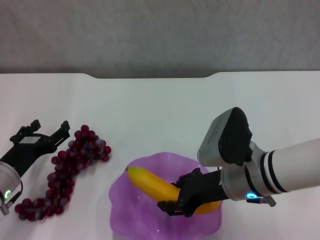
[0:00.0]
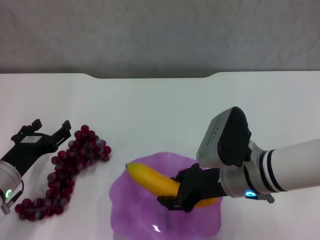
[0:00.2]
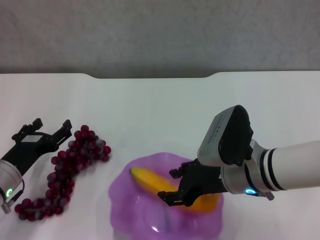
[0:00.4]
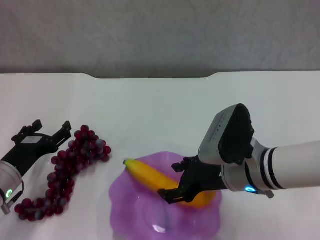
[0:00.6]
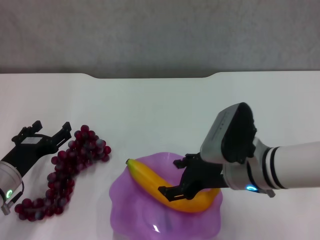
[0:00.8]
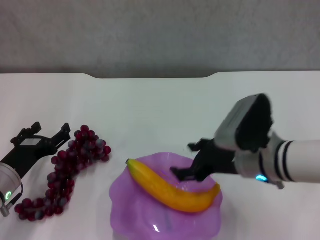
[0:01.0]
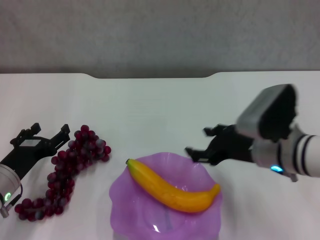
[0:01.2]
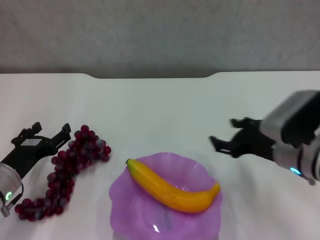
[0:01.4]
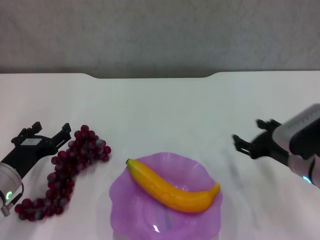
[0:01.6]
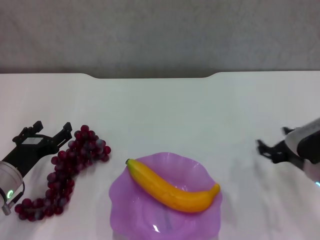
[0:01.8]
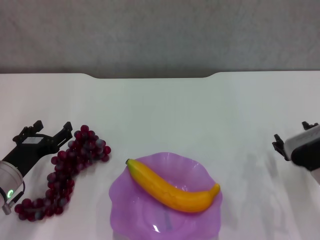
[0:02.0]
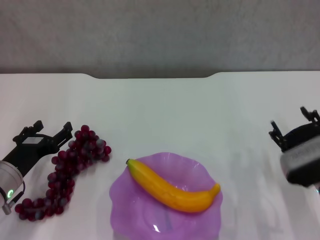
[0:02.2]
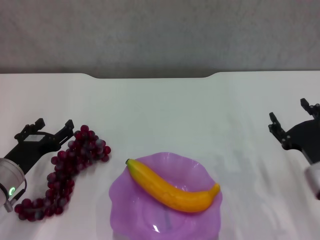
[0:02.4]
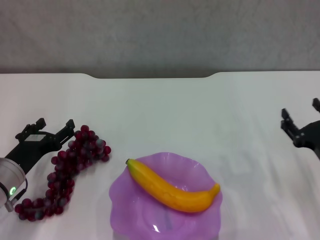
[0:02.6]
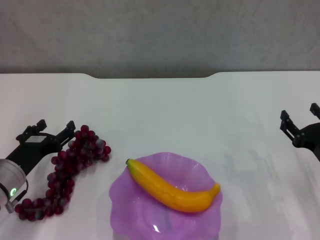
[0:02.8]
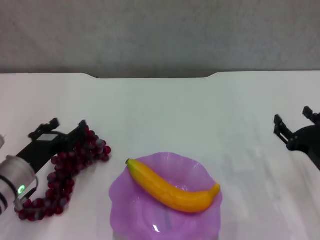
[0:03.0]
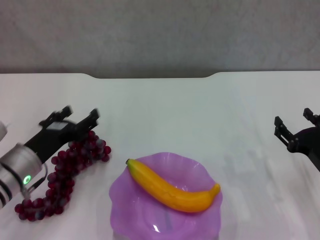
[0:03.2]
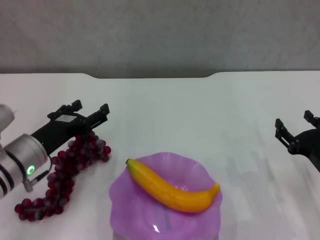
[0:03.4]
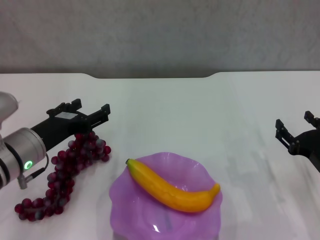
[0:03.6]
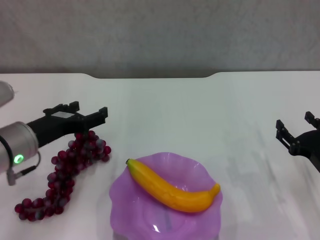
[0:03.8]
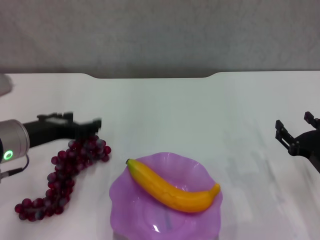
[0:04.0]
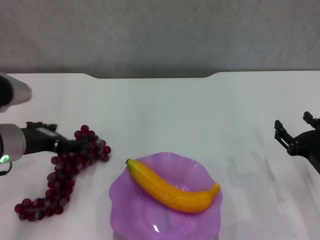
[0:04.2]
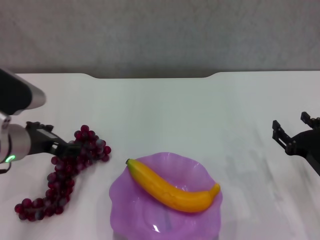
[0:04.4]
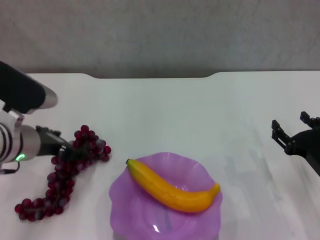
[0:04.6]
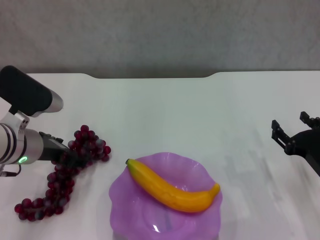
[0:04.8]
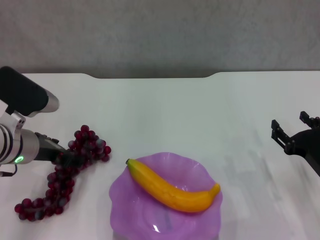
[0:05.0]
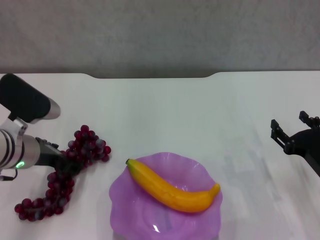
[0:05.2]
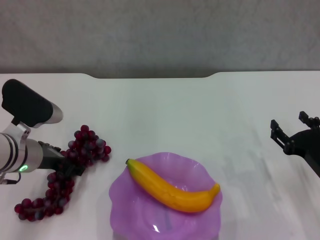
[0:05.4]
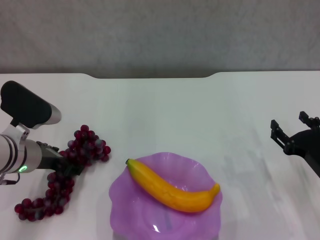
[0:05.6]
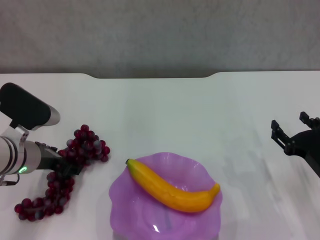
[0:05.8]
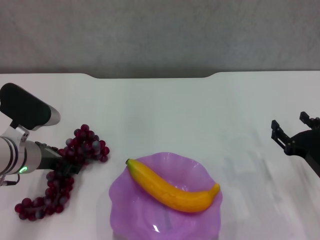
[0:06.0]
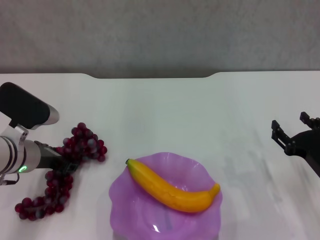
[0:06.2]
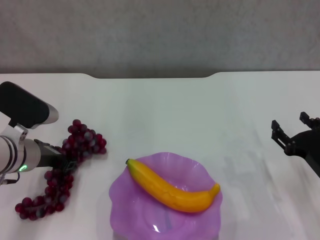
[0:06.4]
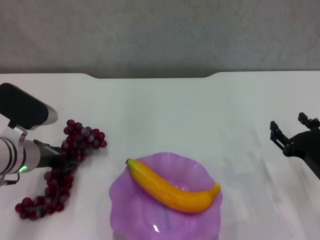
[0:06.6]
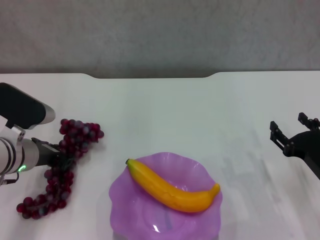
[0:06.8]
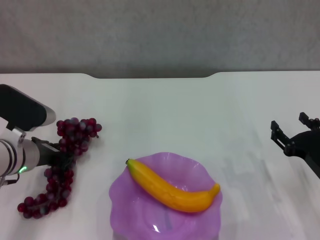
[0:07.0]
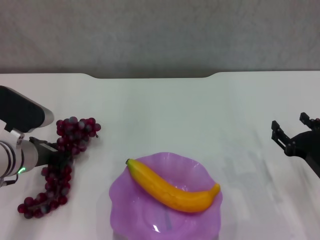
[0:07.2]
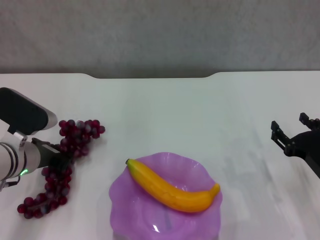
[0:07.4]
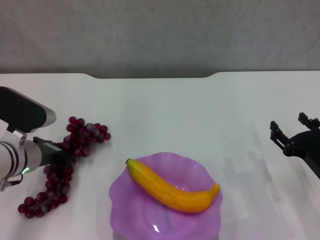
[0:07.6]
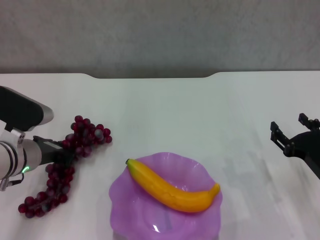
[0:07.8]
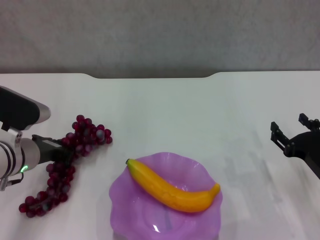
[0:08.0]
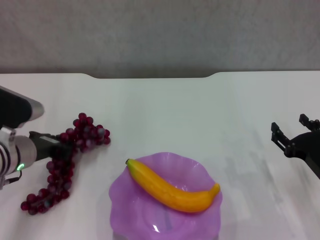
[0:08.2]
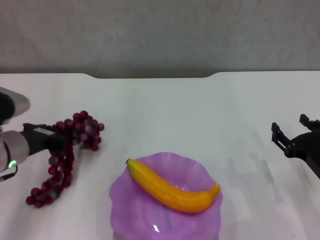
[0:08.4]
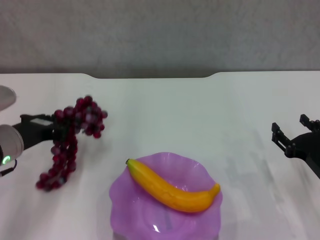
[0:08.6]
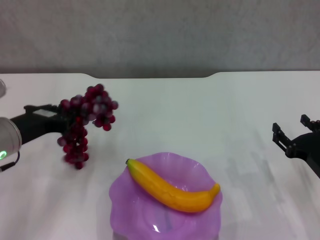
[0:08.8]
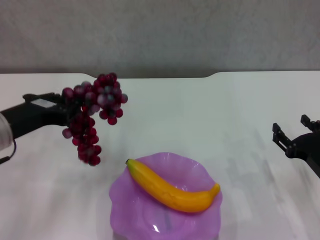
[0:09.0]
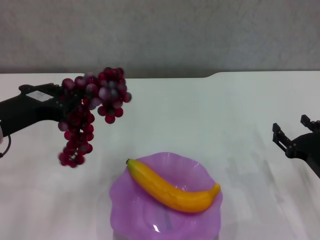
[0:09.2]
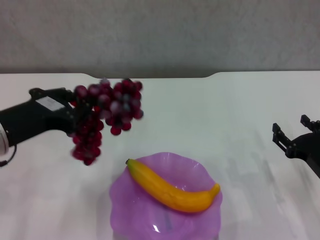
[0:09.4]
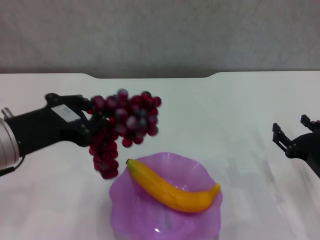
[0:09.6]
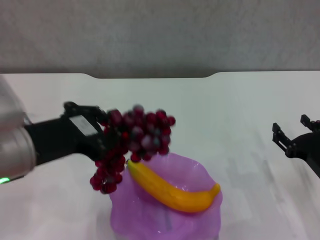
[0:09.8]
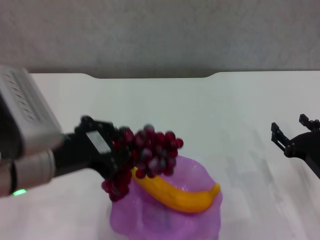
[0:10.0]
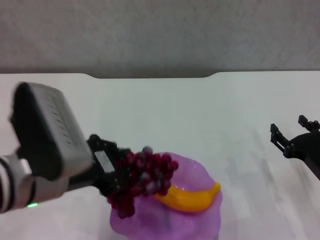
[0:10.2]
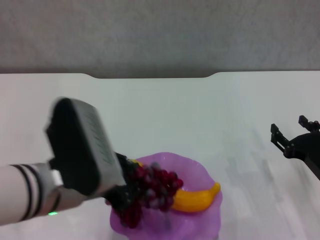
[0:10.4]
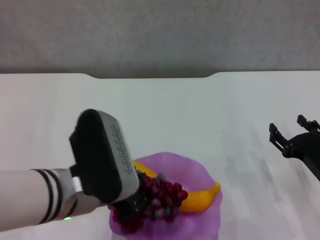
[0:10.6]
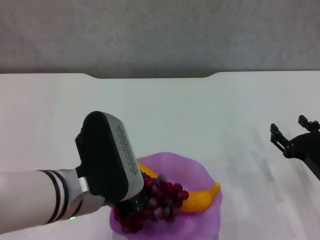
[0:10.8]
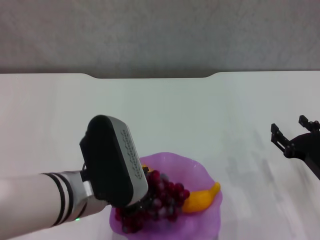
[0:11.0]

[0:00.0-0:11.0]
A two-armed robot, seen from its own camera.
Step, 0:01.0 to 0:06.6: Grasp the grape with left gripper.
0:00.0 to 0:01.6: The right gripper moves to the right, approximately 10 cm, and opens up.
0:01.6 to 0:03.2: The right gripper heads to the right, covering approximately 5 cm.
0:03.2 to 0:04.8: The left gripper shifts approximately 5 cm upward.
0:04.8 to 0:06.2: There are only small adjustments of the grippers.
0:06.2 to 0:07.8: The left gripper closes up.
0:07.8 to 0:09.4: The left gripper moves upward and backward, some 15 cm.
0:09.4 to 0:11.0: The left gripper is displaced to the right by roughly 10 cm.

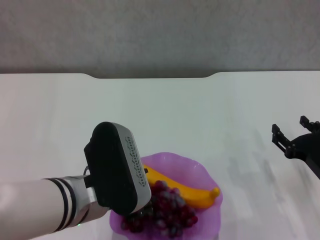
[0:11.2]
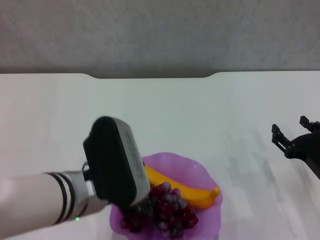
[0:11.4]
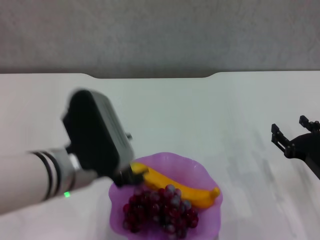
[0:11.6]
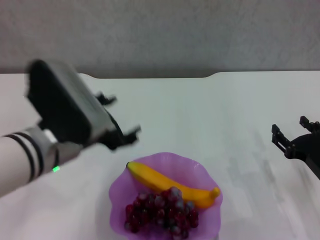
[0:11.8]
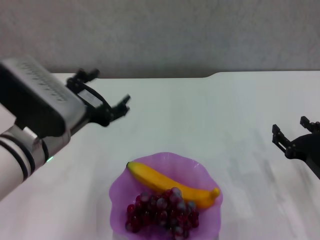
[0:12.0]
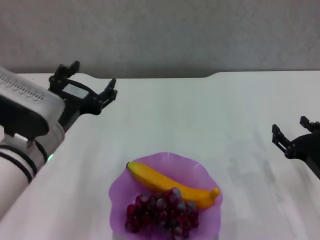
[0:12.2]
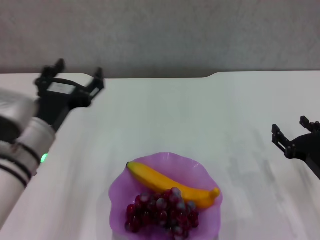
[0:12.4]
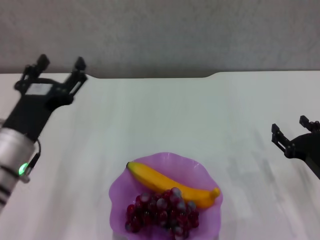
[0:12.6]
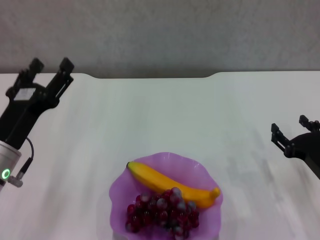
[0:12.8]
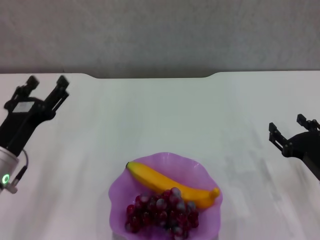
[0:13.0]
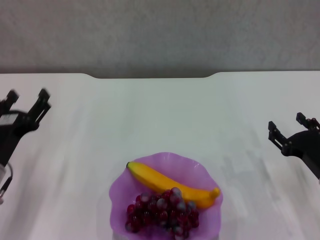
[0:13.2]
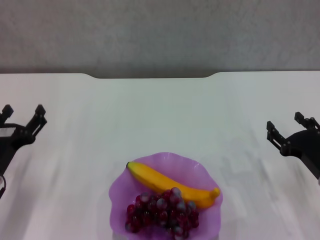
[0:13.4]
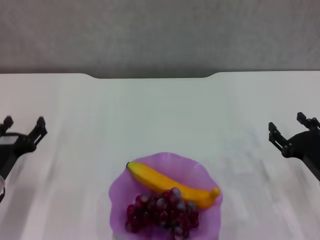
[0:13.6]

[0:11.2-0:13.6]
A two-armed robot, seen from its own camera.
0:11.2 to 0:12.4: The left gripper goes about 5 cm to the left, and opens.
0:12.4 to 0:13.6: The left gripper goes approximately 15 cm to the left and downward.
